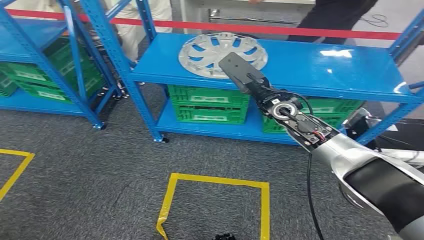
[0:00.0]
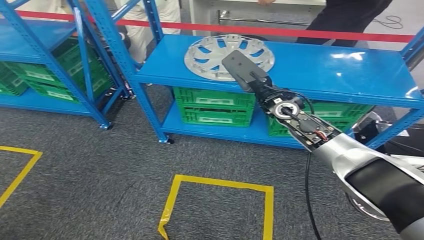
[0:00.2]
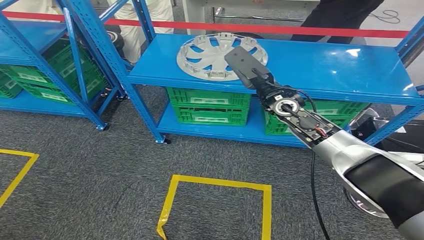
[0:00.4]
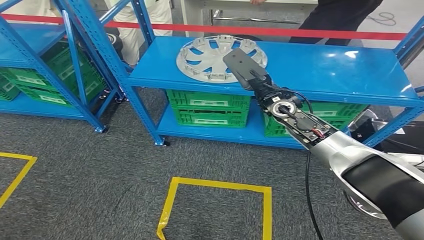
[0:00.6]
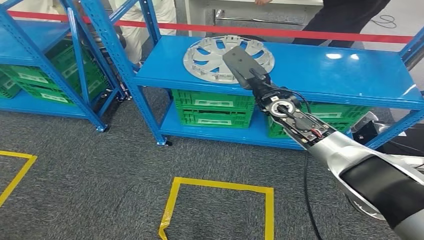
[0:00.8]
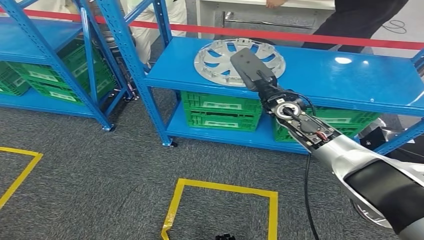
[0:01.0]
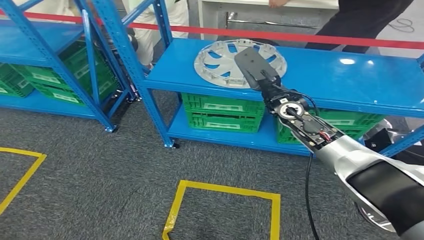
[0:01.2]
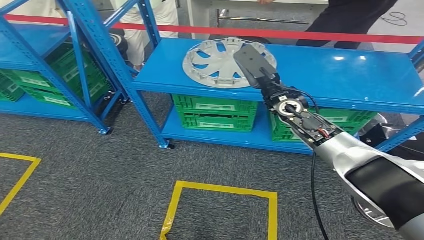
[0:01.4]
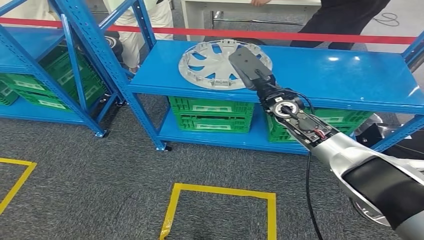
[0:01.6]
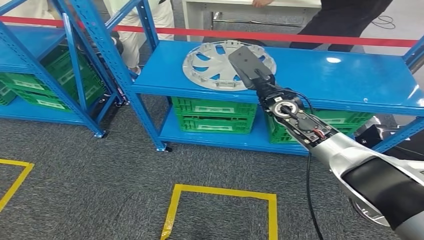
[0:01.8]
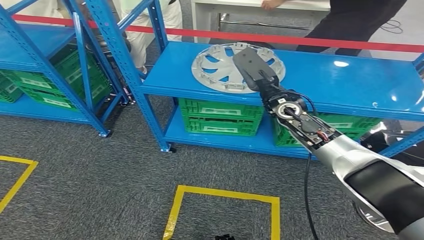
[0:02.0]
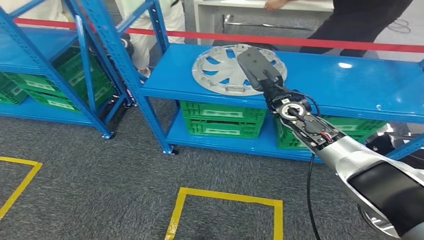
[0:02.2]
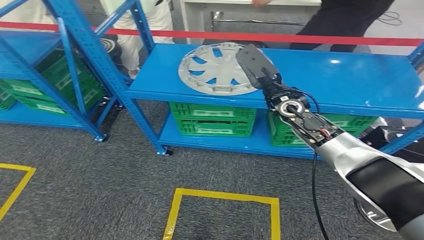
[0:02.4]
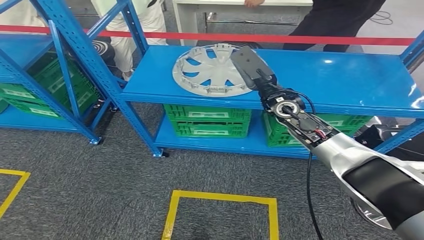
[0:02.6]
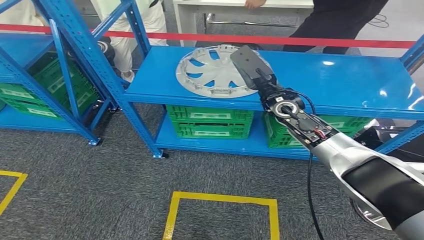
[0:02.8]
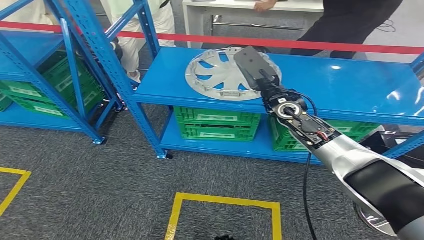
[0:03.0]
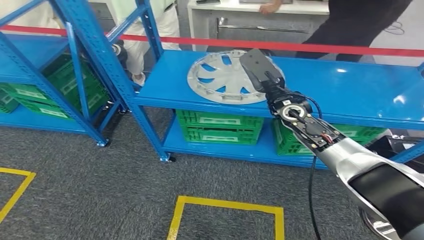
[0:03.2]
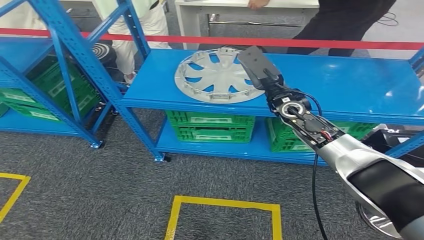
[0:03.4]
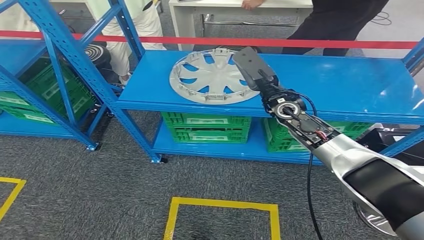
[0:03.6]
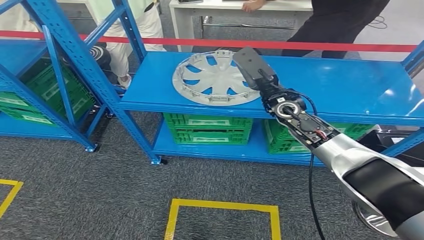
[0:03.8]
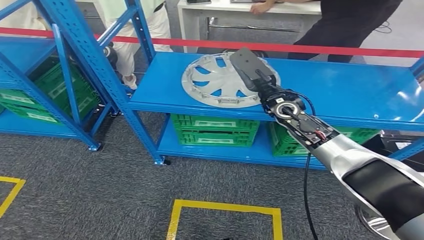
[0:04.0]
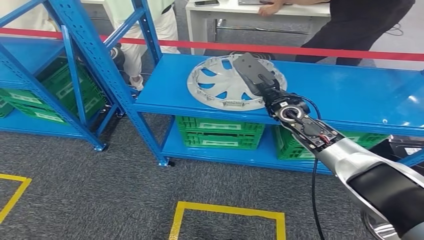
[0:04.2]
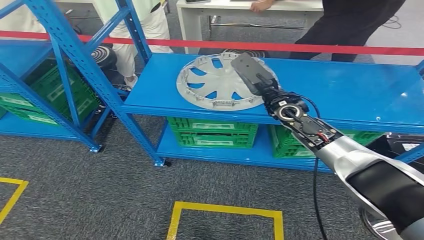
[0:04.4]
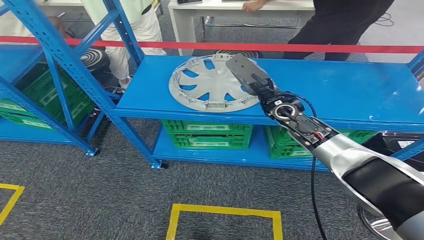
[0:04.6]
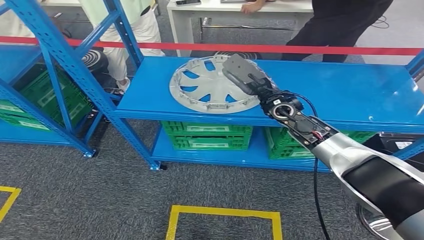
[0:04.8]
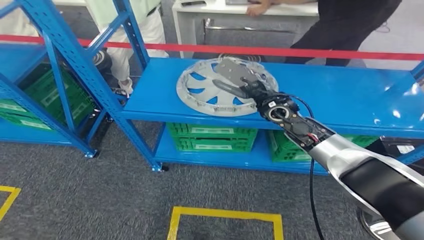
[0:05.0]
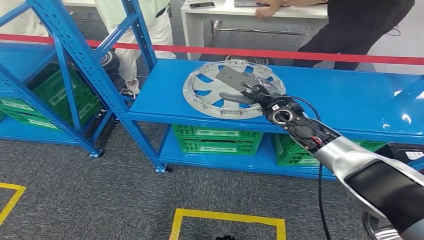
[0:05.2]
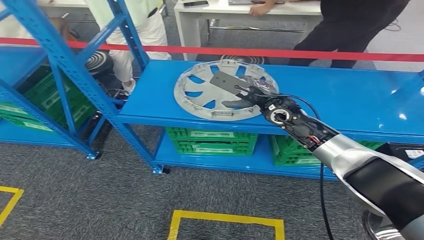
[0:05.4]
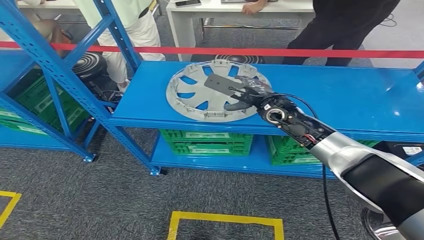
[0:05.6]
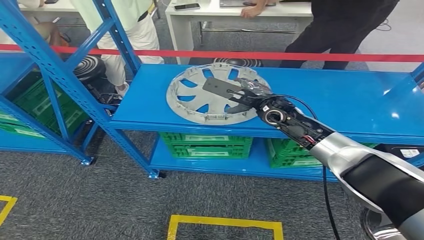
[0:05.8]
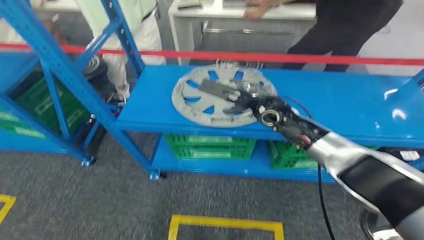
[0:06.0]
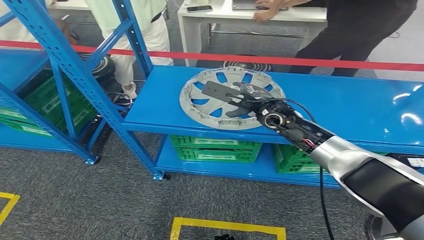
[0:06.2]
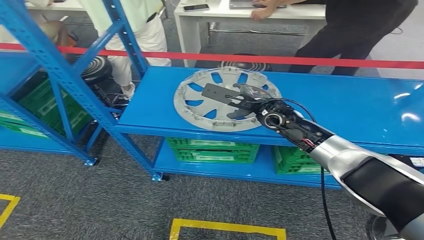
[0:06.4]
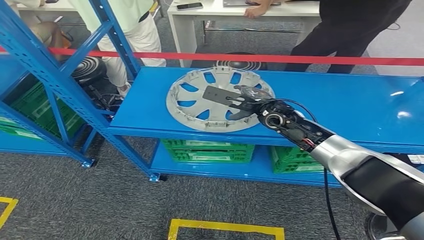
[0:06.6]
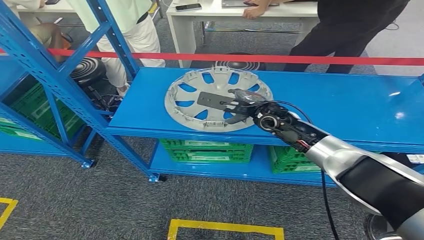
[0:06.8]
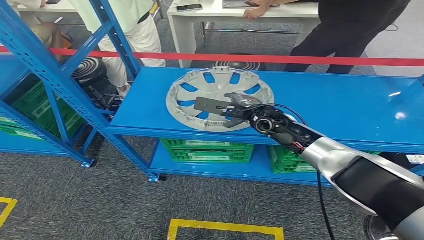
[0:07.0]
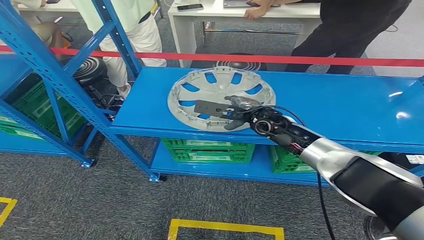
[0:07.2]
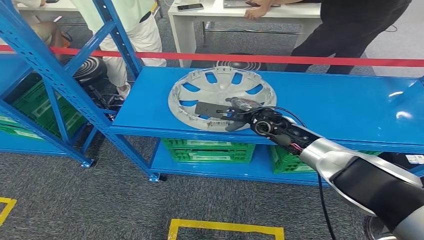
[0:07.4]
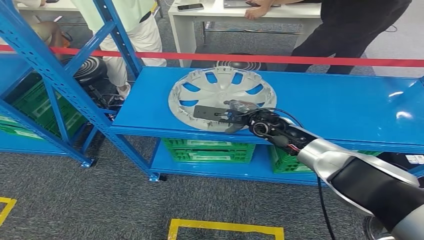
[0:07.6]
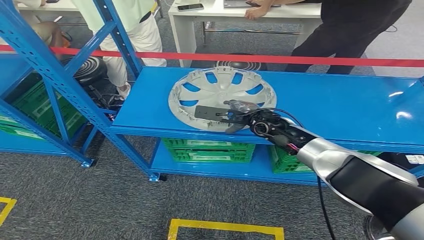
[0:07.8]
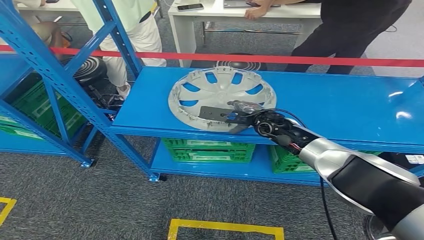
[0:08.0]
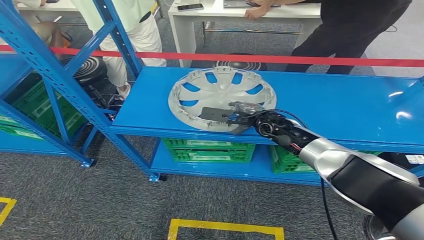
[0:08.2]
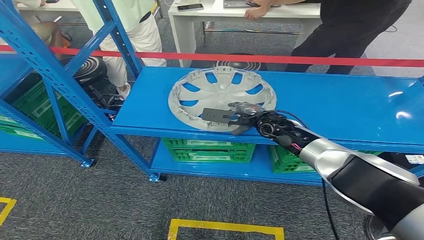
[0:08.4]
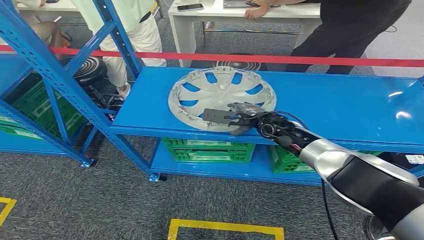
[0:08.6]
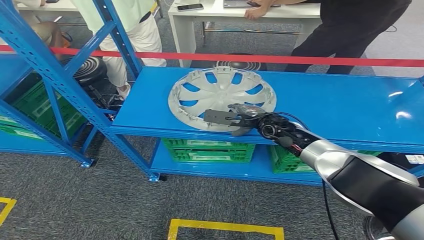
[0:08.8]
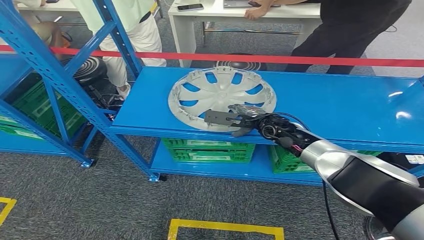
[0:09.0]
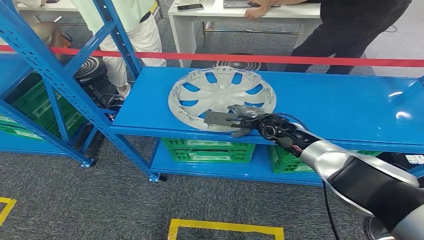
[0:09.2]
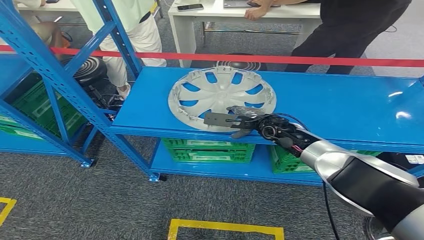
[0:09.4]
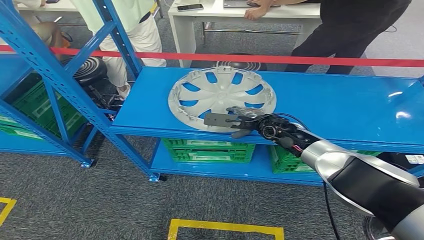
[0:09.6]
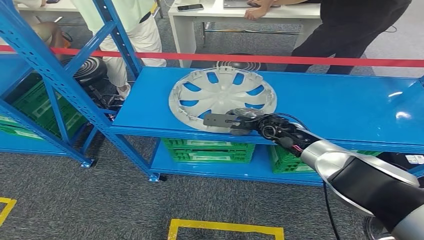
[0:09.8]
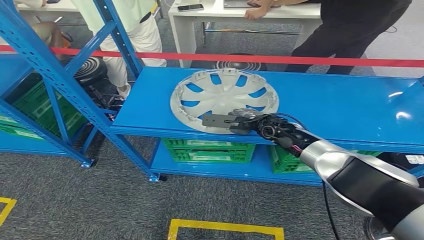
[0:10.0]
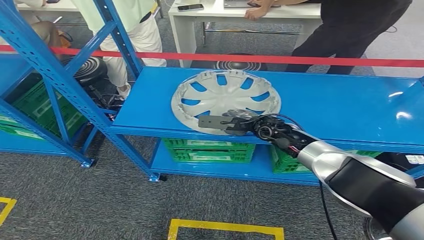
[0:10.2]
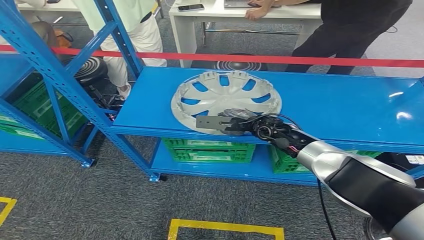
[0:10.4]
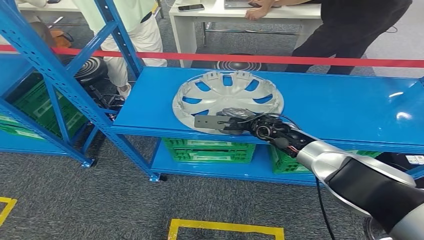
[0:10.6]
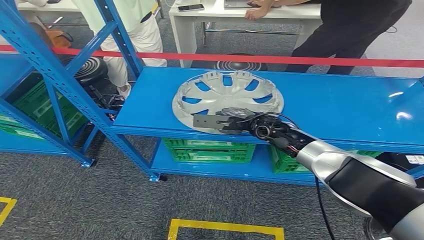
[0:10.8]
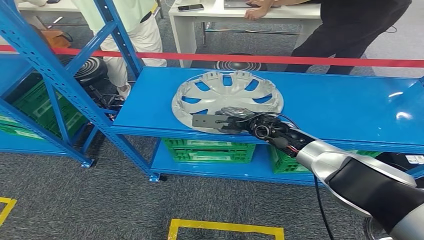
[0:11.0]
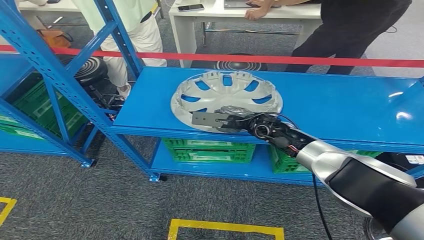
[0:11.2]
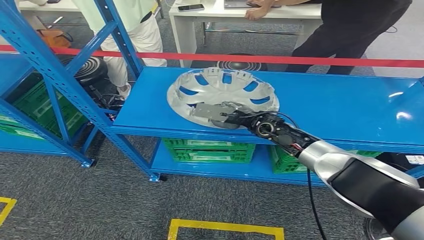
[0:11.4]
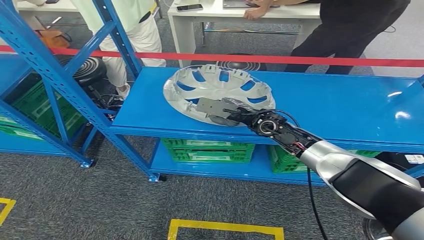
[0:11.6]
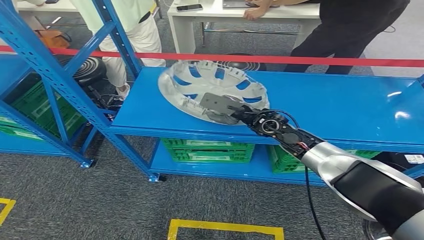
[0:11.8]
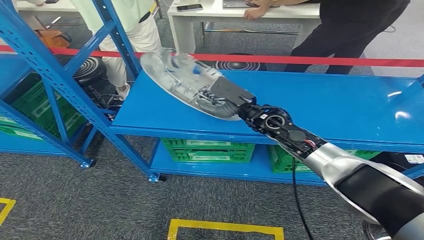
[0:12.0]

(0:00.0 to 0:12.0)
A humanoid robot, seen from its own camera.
0:07.6 - 0:10.4: The hands move only a little.
0:10.4 - 0:12.0: The right hand heads upward, covering some 5 cm.

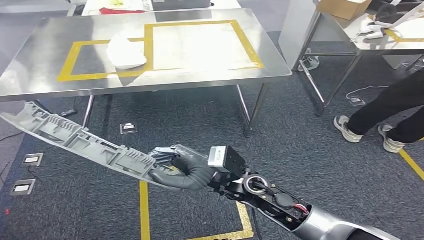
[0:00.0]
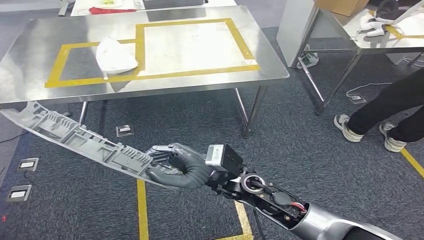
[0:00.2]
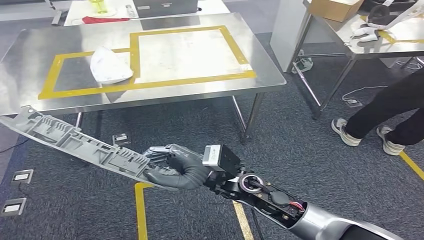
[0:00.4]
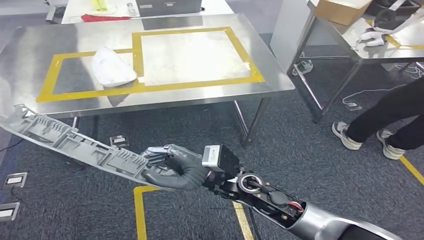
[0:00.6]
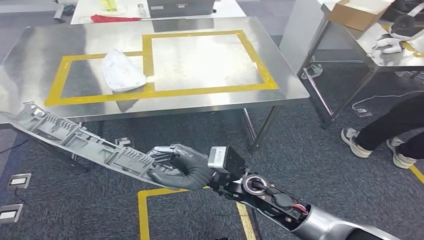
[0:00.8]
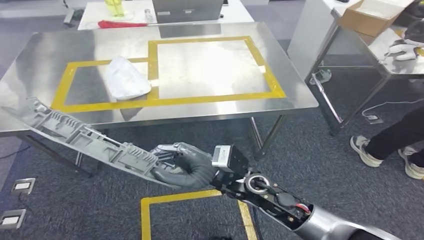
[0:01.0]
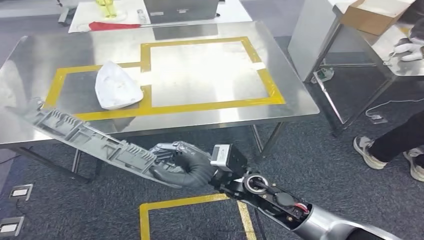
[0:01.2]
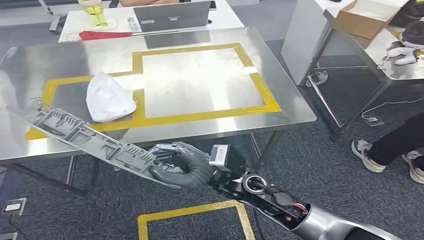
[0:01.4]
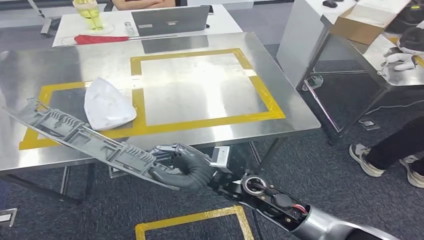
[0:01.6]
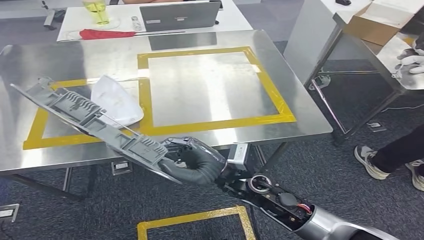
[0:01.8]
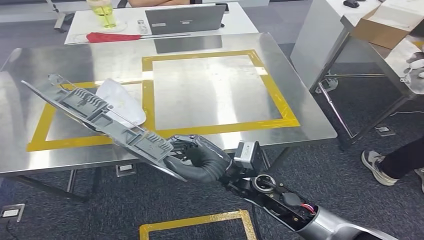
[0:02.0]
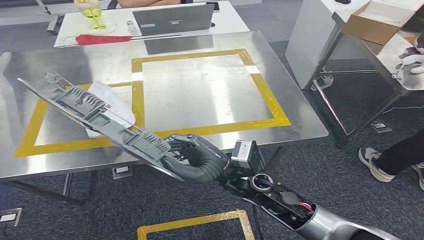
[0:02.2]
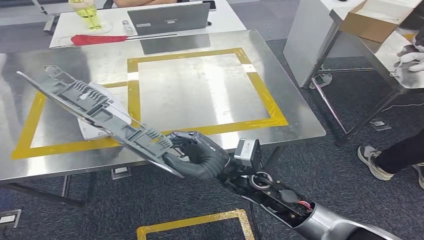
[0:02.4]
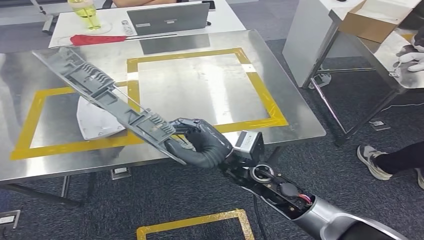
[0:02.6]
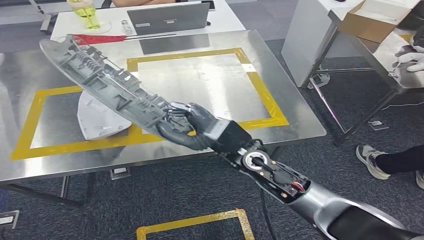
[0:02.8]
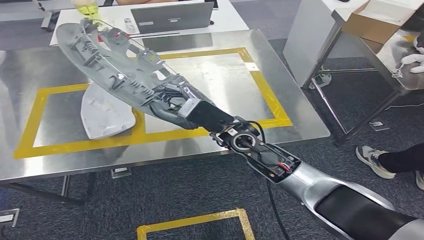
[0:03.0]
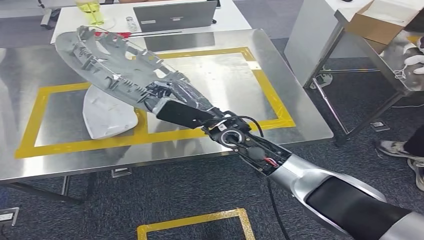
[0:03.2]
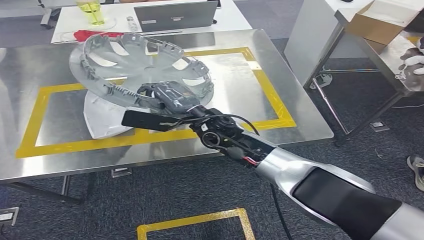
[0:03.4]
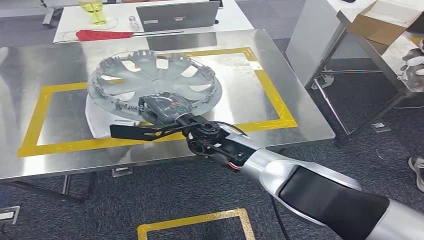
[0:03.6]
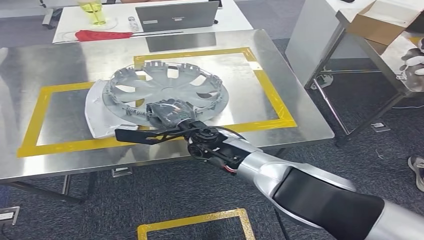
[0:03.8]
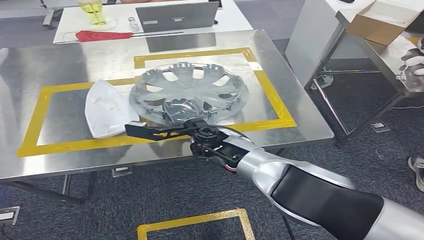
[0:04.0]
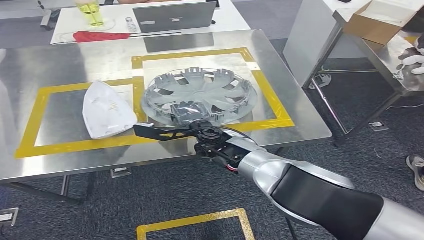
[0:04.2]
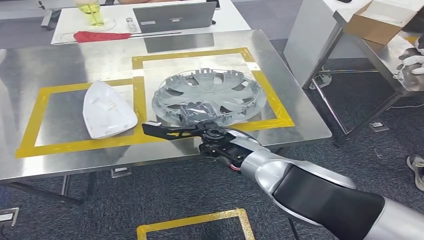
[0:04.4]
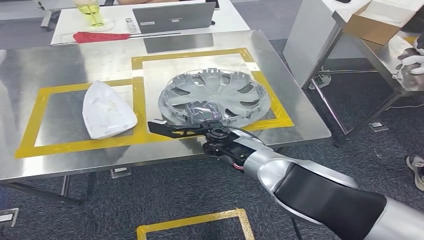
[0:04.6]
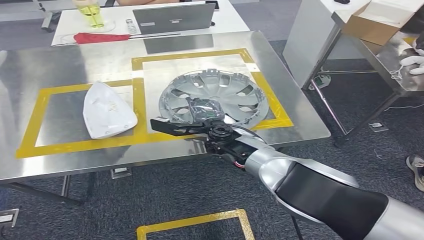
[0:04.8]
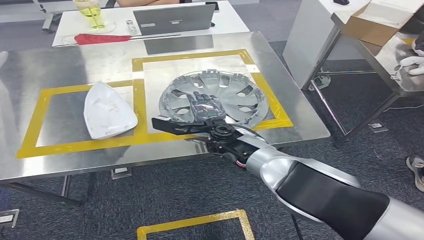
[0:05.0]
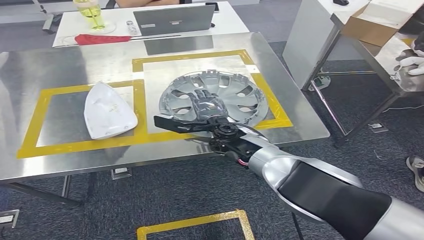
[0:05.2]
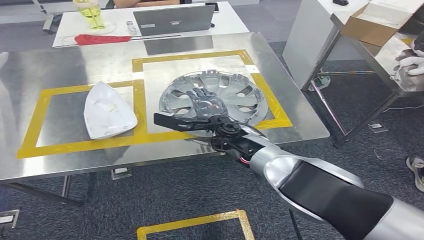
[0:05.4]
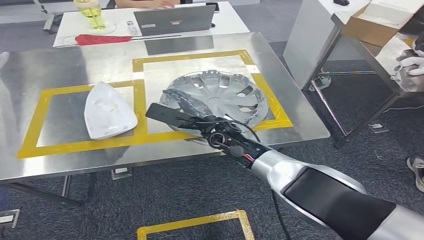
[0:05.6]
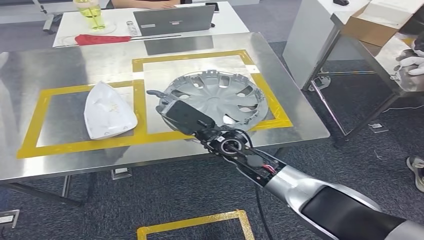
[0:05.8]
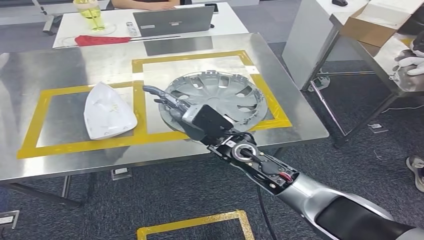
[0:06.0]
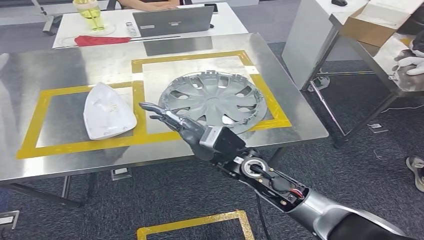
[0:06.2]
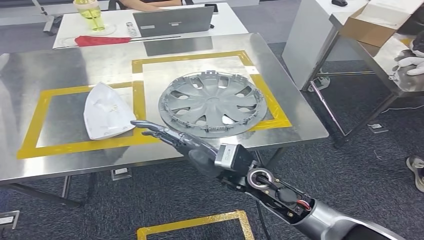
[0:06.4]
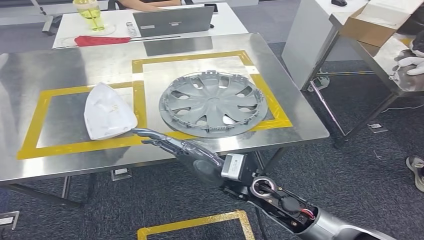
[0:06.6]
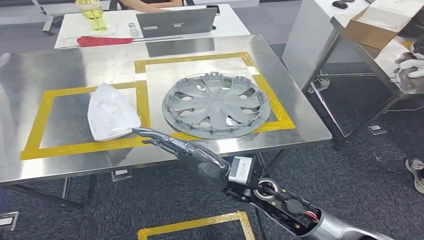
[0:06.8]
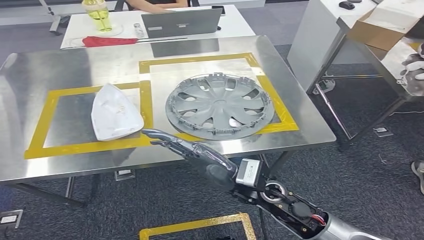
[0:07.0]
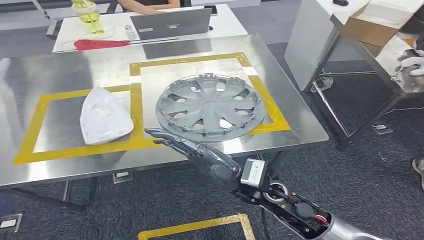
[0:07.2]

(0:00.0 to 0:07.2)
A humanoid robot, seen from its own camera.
Step, 0:00.0 - 0:02.6: Move the small component to the workbench.
